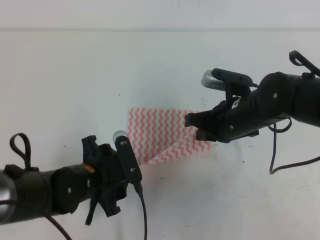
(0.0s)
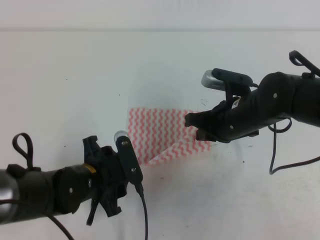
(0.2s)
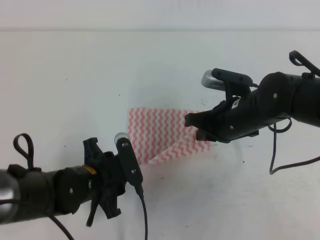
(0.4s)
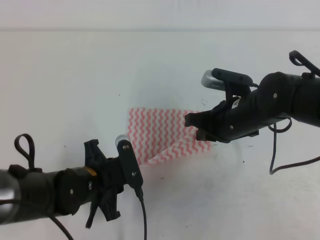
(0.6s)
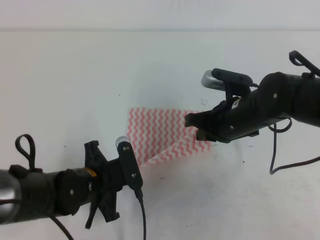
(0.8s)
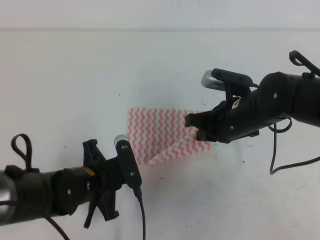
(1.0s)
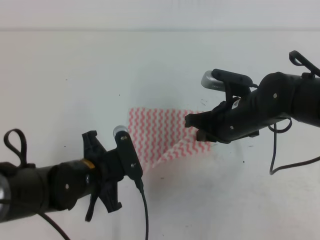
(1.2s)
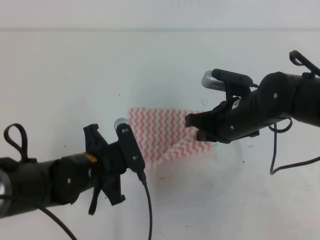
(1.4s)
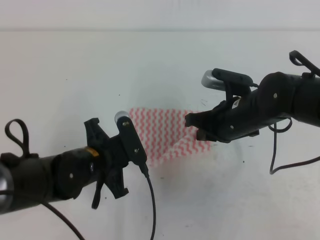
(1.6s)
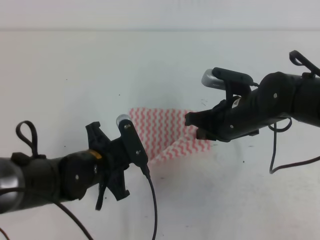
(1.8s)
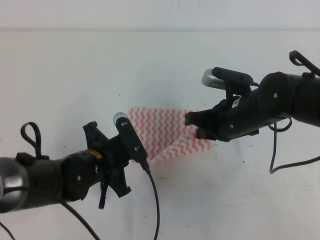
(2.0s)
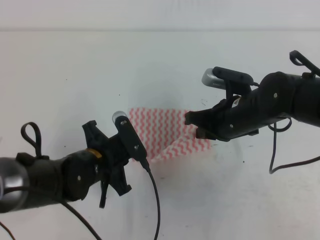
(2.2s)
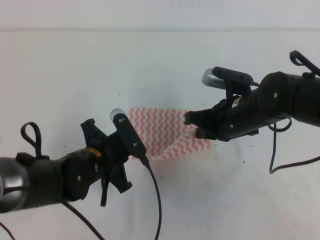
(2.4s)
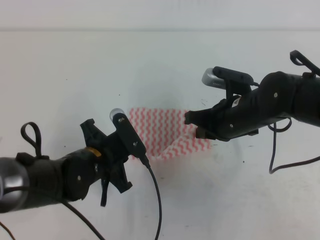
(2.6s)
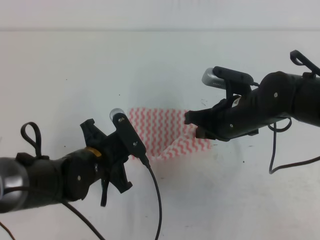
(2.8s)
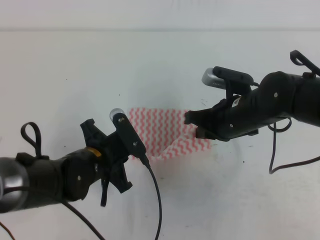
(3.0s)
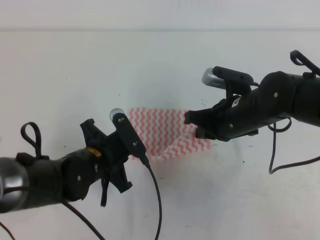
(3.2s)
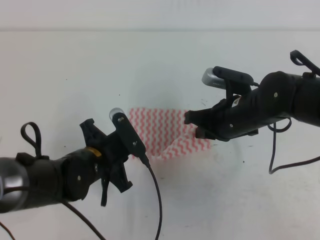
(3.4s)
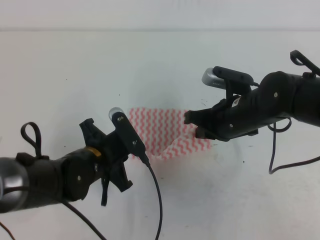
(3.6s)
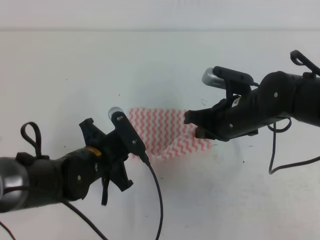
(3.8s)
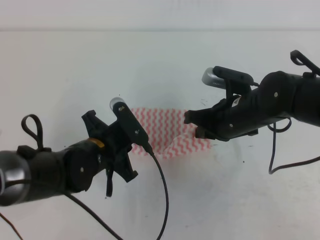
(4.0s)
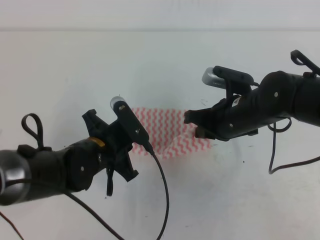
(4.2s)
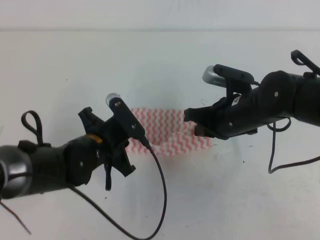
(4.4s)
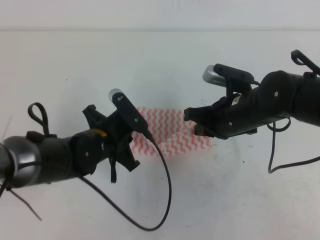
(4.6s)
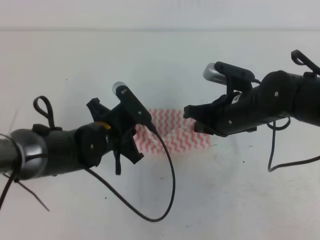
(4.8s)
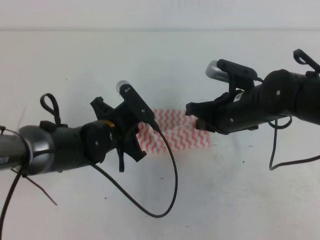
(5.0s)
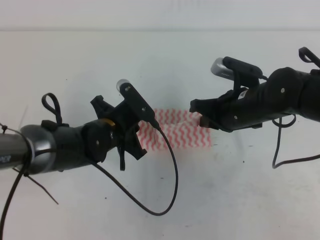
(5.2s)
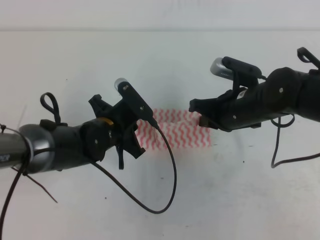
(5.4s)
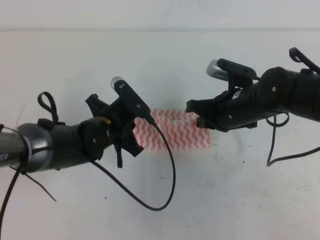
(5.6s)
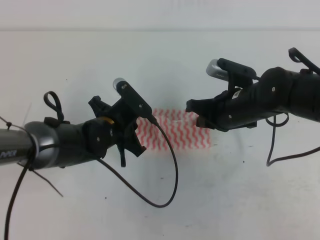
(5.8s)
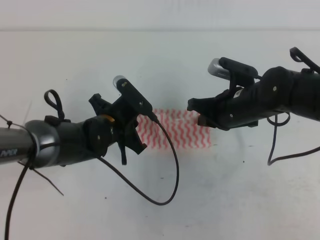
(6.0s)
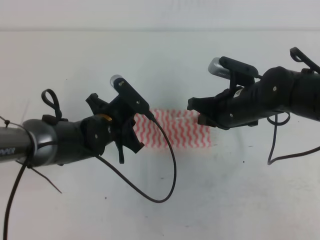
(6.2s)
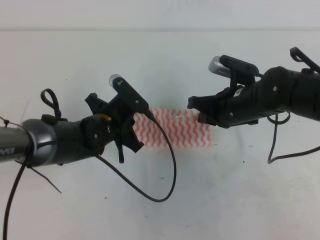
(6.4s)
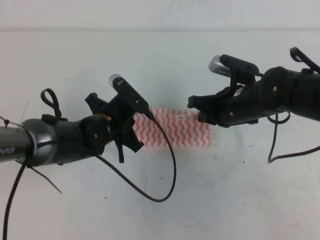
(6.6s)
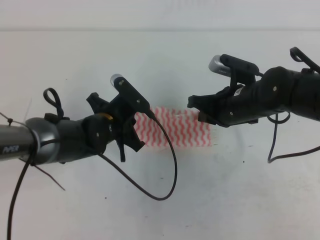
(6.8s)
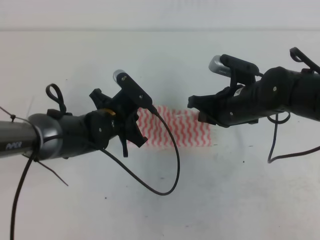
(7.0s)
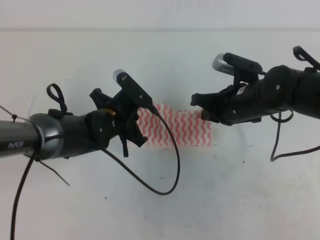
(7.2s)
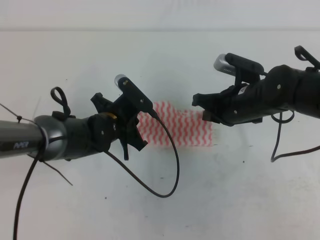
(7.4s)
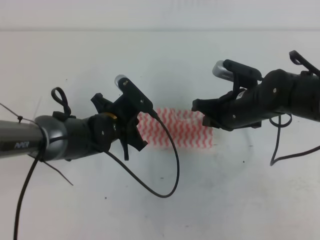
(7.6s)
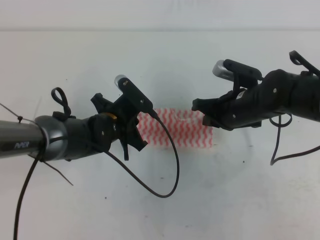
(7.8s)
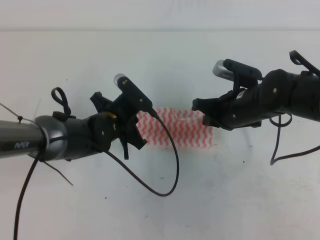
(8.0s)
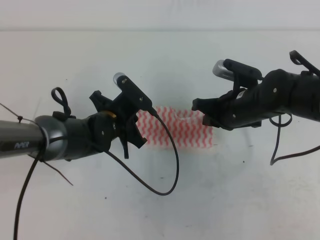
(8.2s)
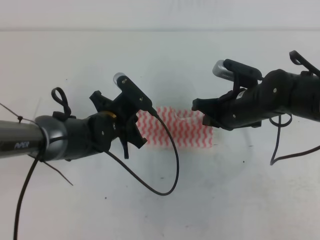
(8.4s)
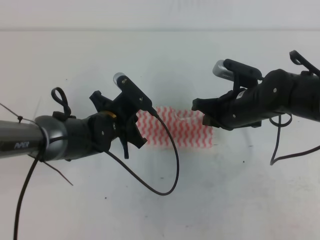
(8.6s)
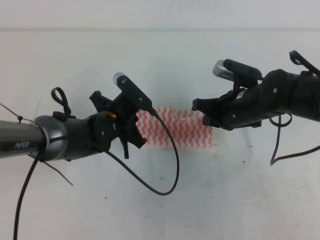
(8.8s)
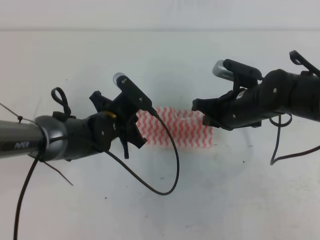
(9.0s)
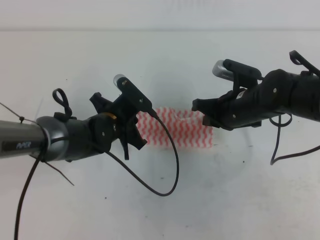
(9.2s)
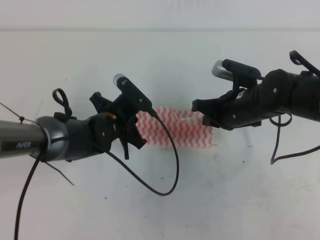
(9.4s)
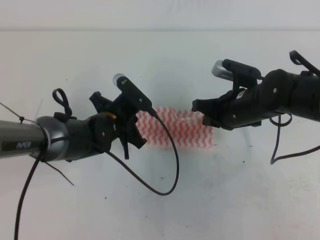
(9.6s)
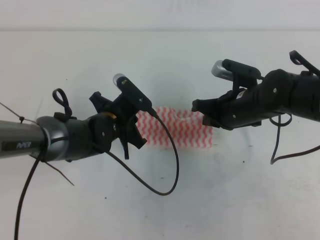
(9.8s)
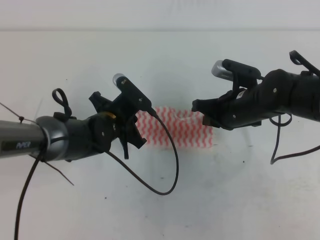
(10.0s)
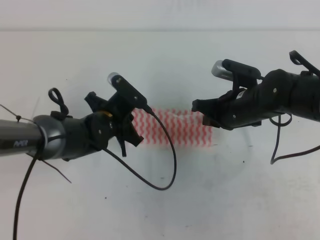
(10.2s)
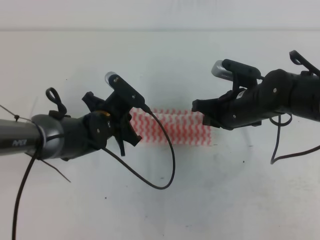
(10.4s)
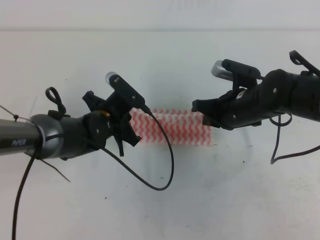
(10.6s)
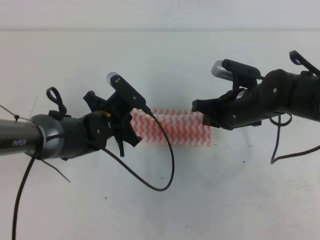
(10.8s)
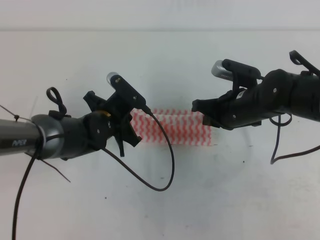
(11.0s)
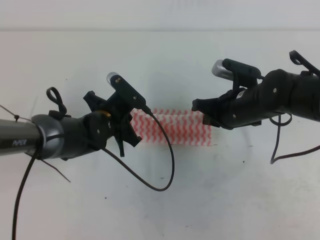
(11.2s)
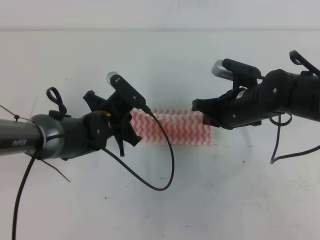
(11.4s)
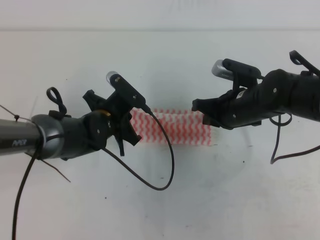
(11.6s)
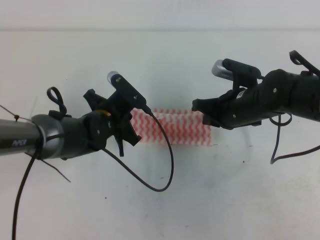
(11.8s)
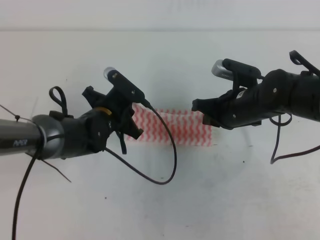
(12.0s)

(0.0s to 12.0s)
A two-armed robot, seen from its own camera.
0.0s - 1.6s: The left gripper closes up.
1.6s - 4.4s: The grippers move only a little.
4.4s - 6.0s: The left gripper moves forward, about 5 cm.
6.0s - 7.6s: The grippers move only a little.
7.6s - 10.4s: Both grippers stay put.
10.4s - 12.0s: Both grippers stay about where they are.

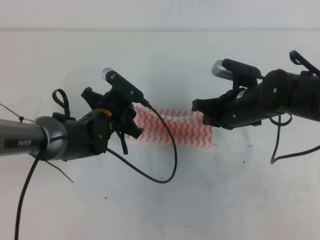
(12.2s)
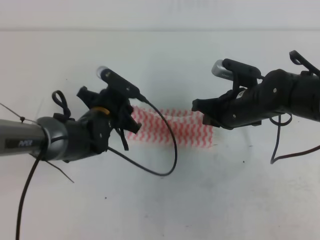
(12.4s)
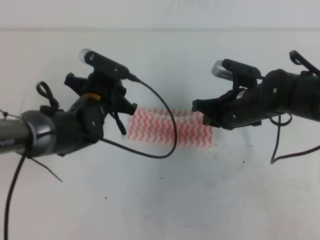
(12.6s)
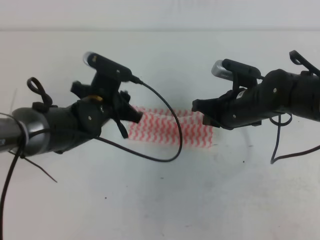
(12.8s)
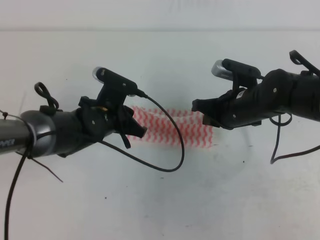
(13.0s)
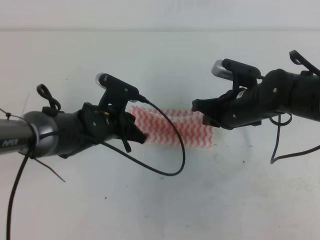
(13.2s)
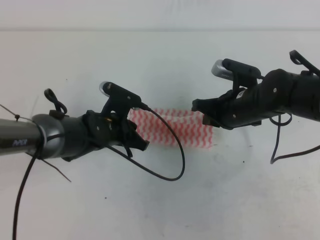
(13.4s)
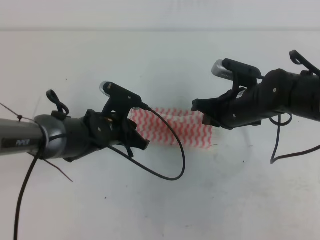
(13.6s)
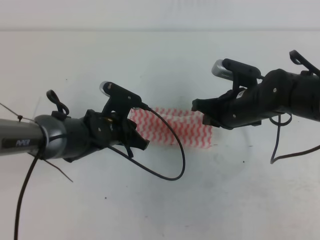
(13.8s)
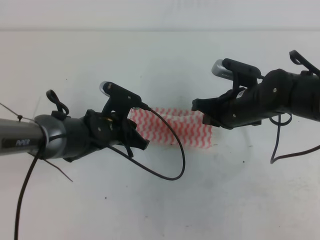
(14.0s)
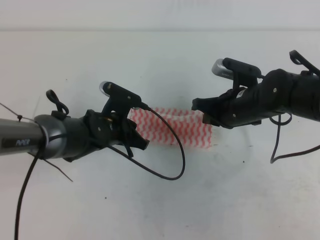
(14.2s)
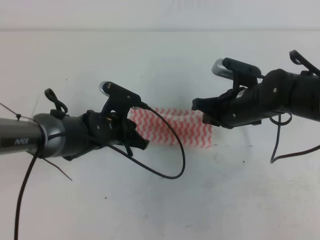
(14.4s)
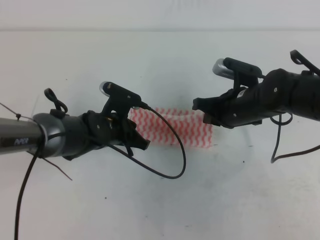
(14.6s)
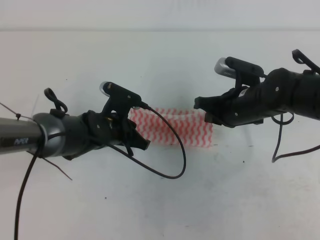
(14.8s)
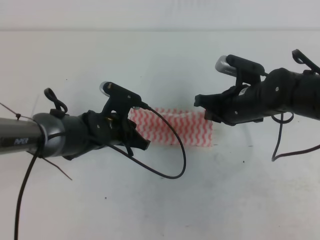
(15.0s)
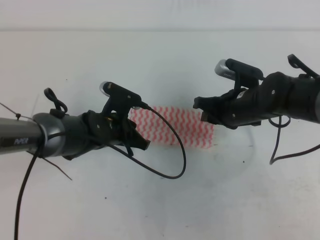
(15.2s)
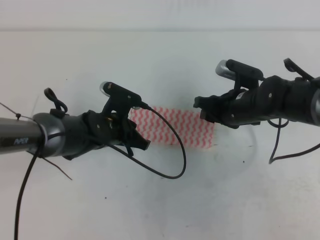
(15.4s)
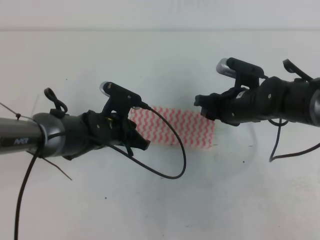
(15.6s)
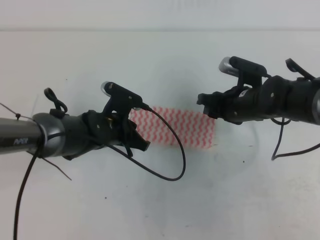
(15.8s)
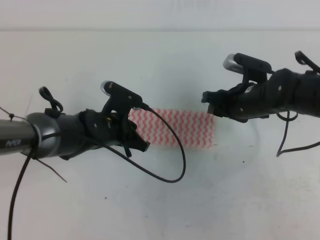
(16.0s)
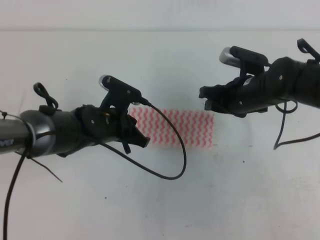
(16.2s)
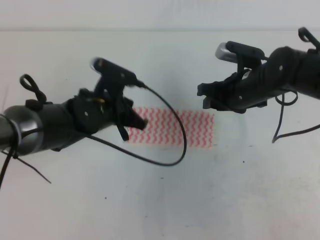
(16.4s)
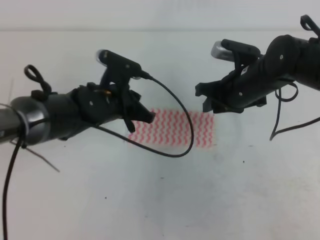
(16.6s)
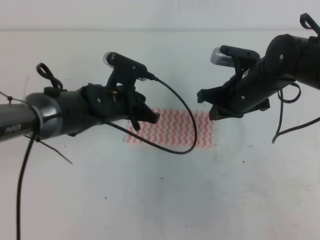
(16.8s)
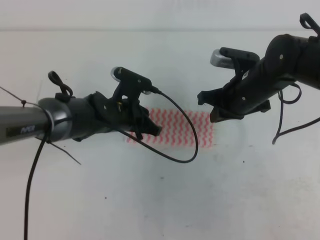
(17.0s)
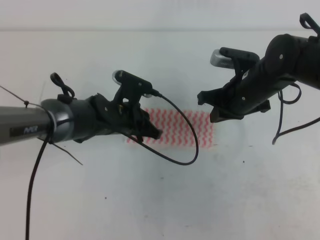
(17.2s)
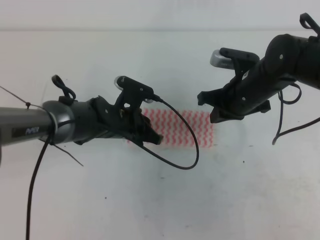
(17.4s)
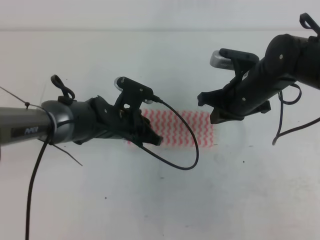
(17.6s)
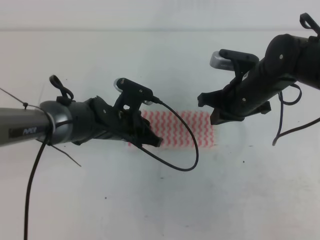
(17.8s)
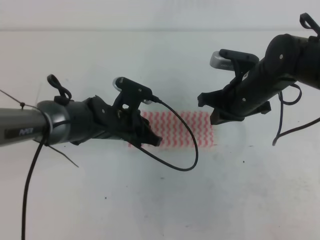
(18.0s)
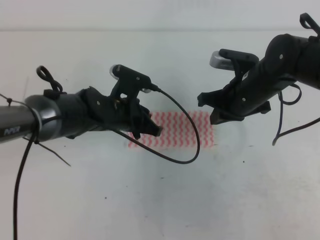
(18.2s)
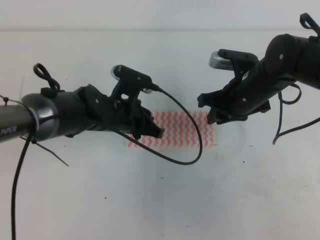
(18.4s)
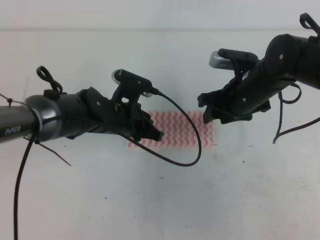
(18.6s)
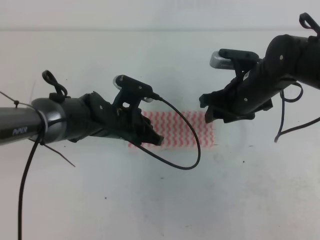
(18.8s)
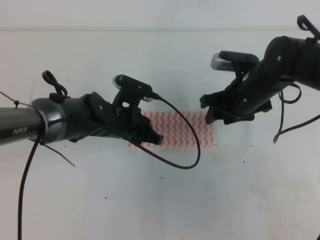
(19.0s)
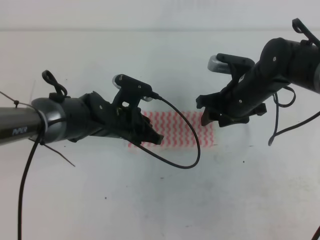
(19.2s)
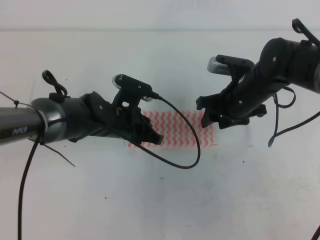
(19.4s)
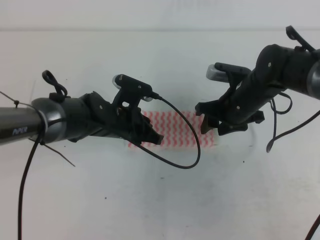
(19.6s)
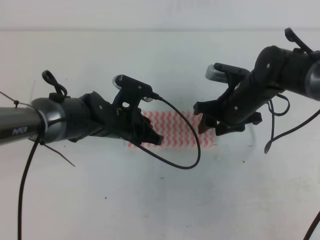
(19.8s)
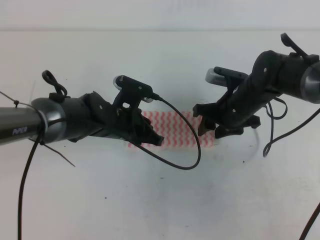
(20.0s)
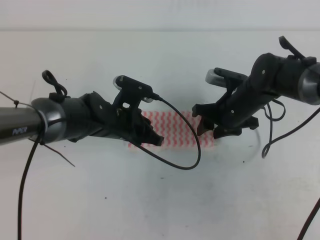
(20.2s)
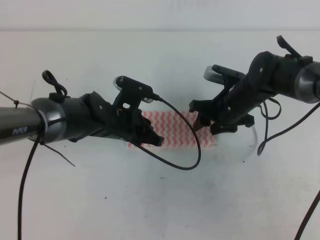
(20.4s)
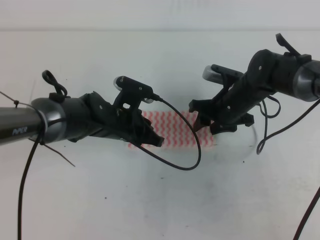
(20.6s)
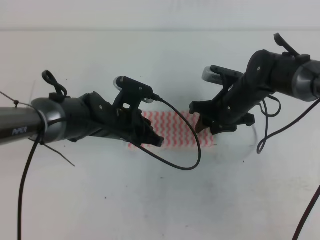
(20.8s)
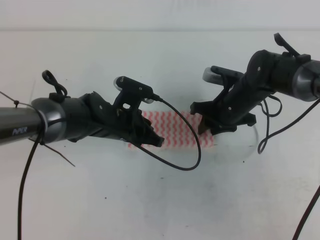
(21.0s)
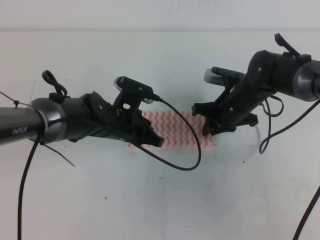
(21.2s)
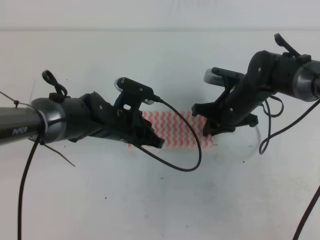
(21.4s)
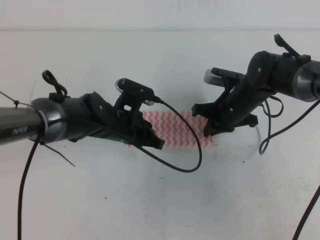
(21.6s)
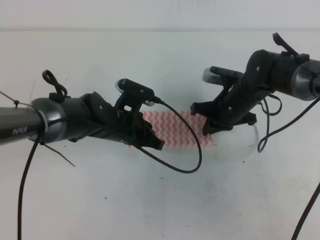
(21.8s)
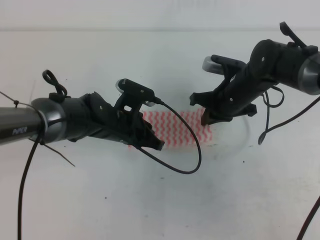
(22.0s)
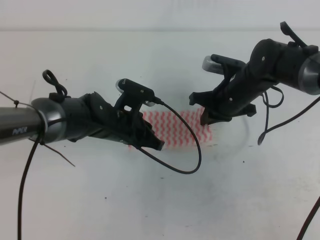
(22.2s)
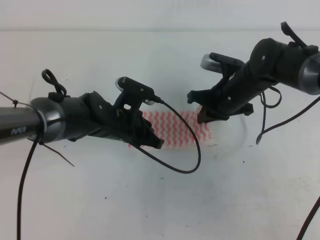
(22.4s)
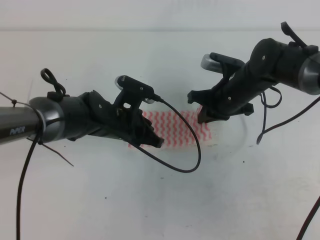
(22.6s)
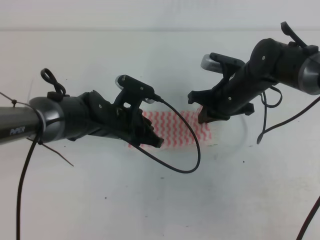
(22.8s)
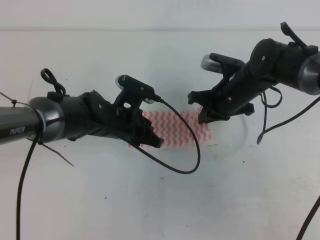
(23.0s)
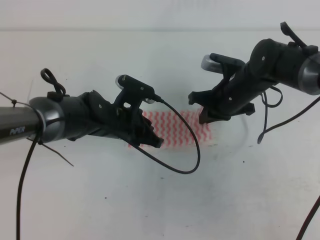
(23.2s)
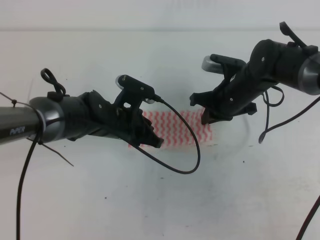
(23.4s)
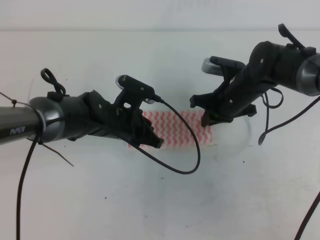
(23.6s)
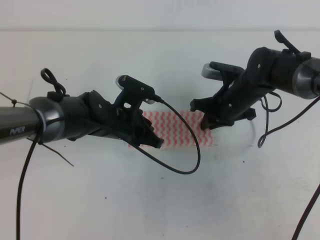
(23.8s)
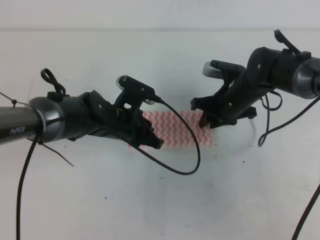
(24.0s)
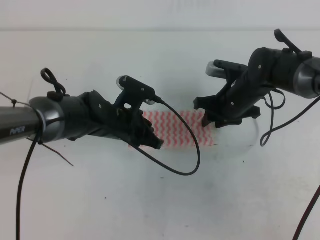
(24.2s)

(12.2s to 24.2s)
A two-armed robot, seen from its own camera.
13.8s - 15.2s: There are only small adjustments of the grippers.
15.2s - 16.6s: The left gripper goes approximately 5 cm upward, while the right gripper opens.
16.6s - 18.2s: The right gripper closes.
18.2s - 19.8s: The right gripper opens.
19.8s - 21.2s: The right gripper closes its fingers.
21.2s - 22.6s: The right gripper closes.
22.6s - 24.2s: The right gripper opens up.
